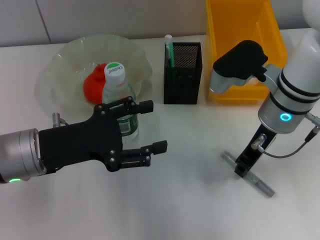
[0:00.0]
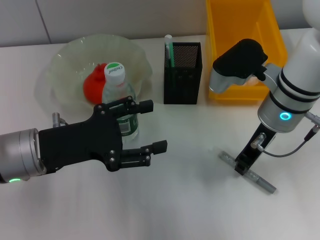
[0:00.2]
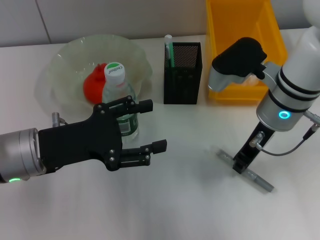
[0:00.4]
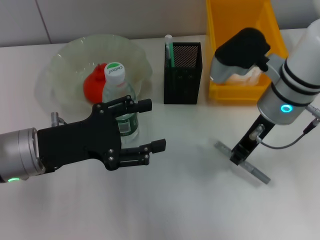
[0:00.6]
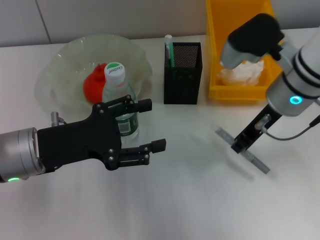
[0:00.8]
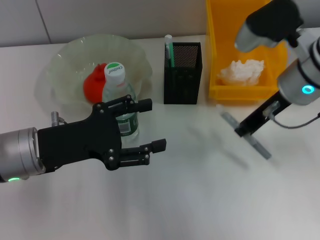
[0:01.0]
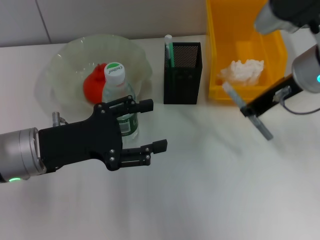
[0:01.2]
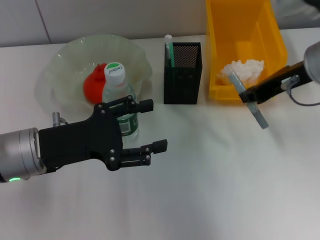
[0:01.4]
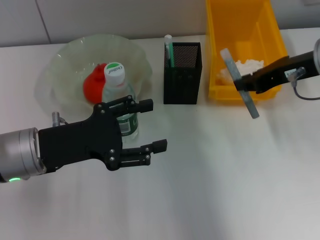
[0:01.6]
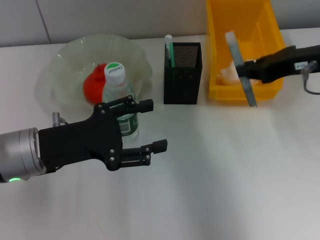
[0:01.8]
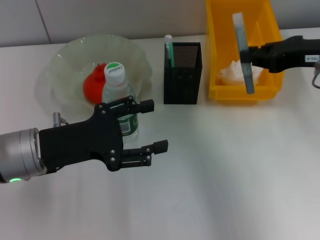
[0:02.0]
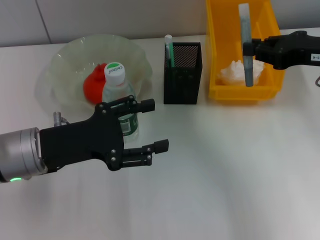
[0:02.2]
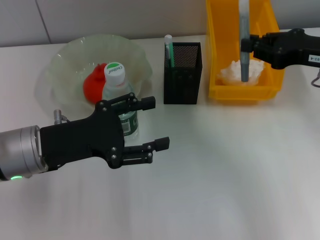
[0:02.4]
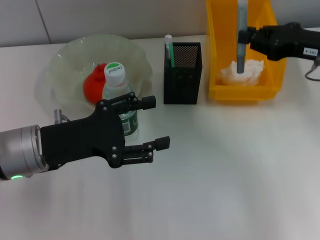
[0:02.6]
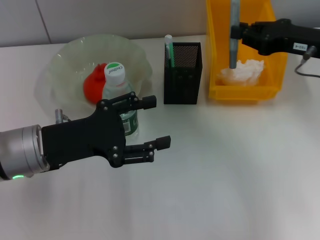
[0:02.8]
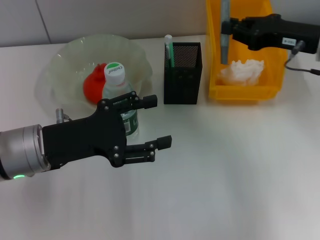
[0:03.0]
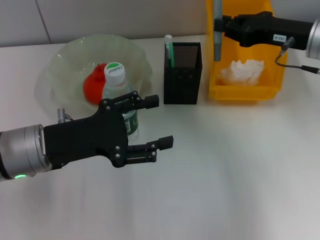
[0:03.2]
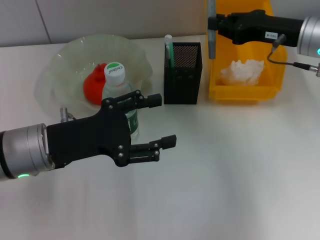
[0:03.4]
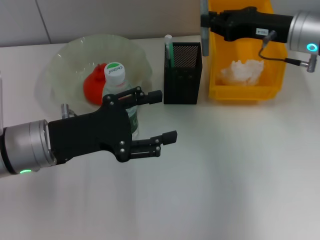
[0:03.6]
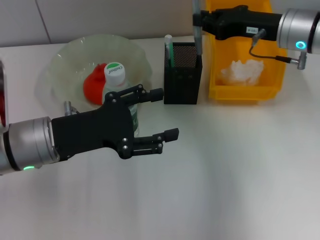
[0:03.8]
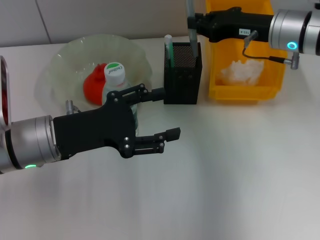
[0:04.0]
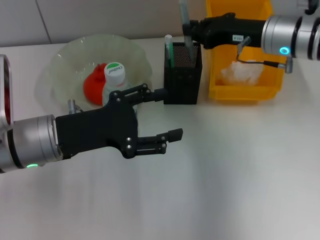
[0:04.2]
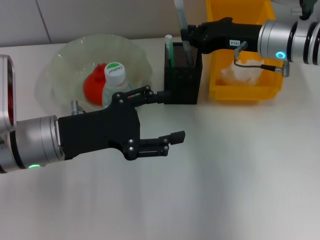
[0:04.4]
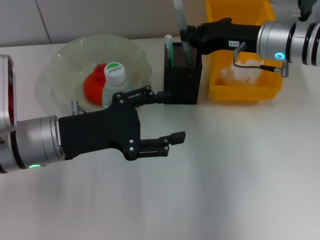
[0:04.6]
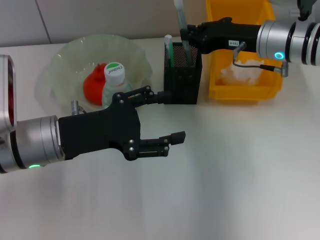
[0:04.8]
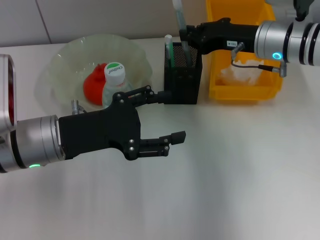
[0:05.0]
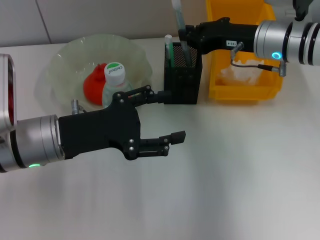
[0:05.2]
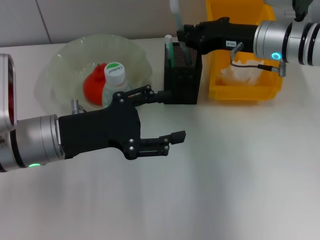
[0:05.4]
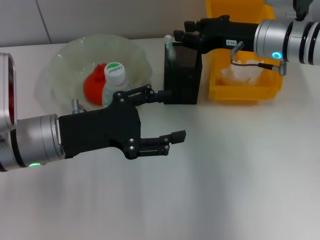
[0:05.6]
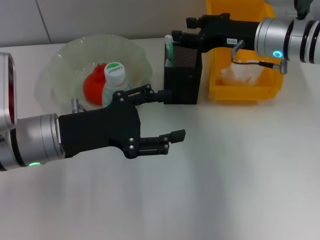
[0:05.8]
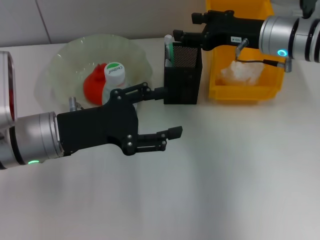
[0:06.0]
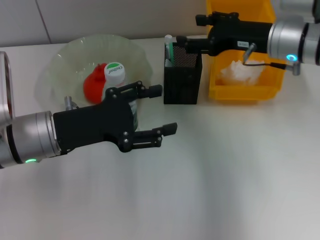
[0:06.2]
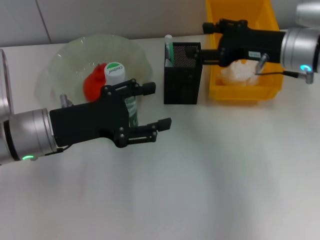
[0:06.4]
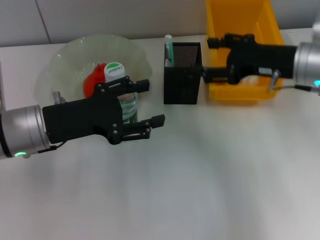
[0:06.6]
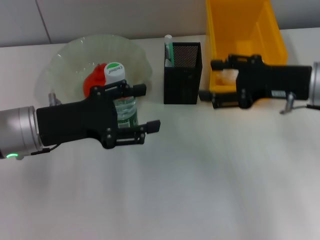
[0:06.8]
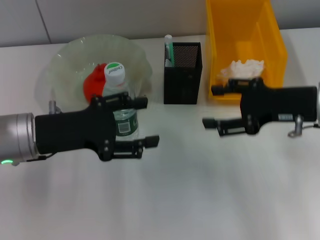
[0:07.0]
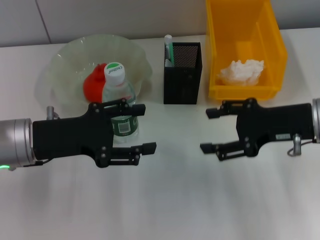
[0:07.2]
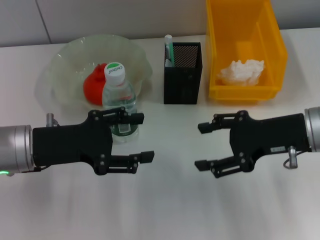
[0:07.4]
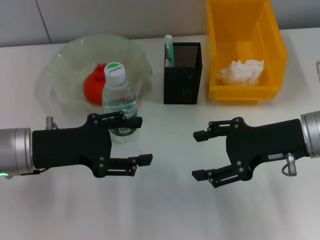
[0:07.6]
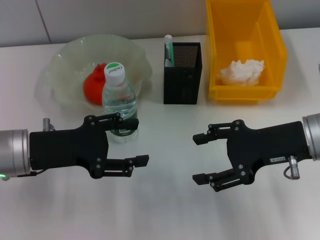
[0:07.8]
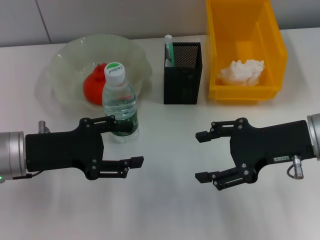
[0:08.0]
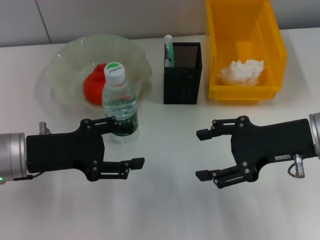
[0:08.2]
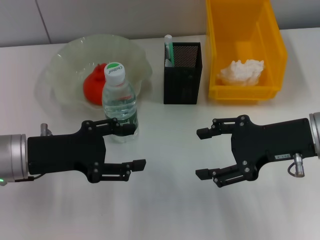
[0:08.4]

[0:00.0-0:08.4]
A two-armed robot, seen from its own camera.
Step, 0.4 to 6.2 s: Place the gray glue into the pen holder with the right hand.
0.0 to 1.4 s: The right gripper moves upward and to the right, roughly 10 cm.
1.4 to 2.8 s: The right gripper shifts some 5 cm to the right.
2.8 to 4.2 s: The right gripper shifts approximately 10 cm to the left and forward.
4.2 to 5.6 s: Both grippers stay about where they are.
5.6 to 7.0 s: The right gripper goes approximately 10 cm backward and to the right, and opens up.

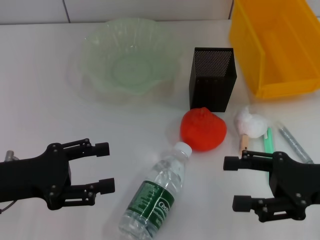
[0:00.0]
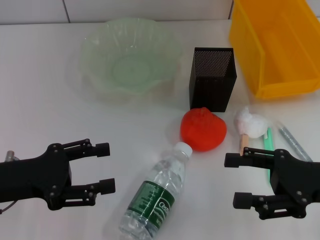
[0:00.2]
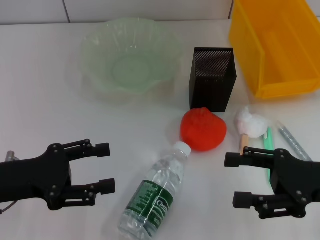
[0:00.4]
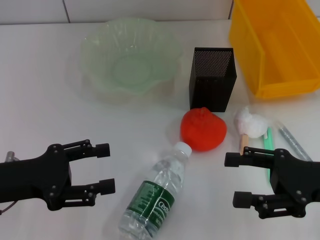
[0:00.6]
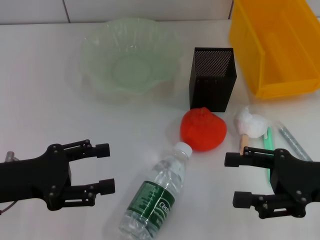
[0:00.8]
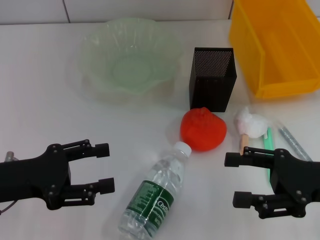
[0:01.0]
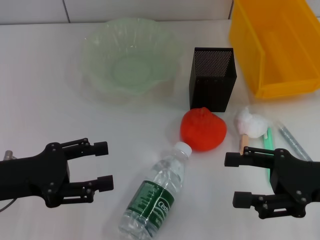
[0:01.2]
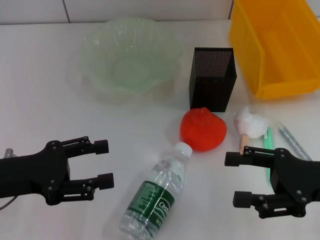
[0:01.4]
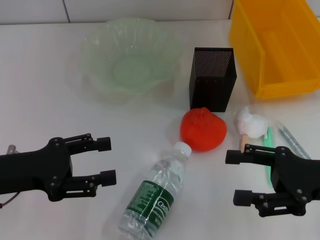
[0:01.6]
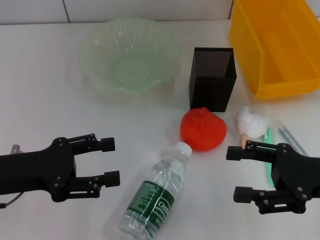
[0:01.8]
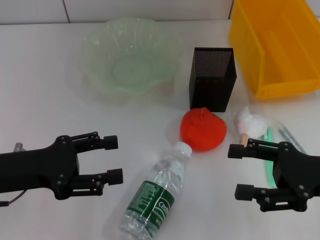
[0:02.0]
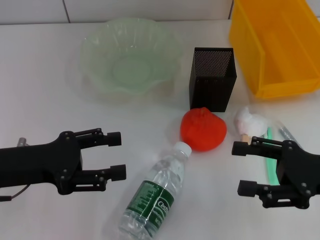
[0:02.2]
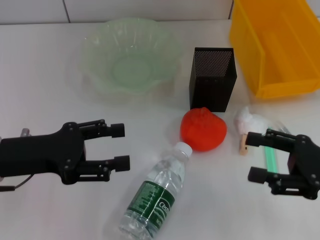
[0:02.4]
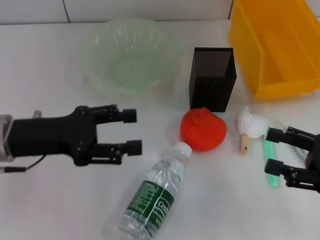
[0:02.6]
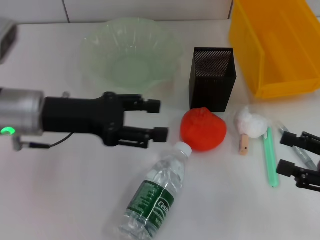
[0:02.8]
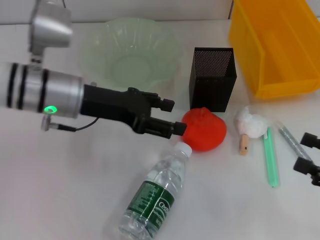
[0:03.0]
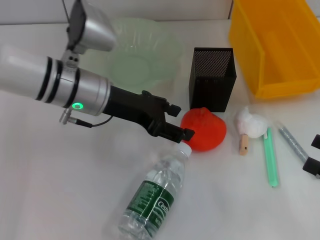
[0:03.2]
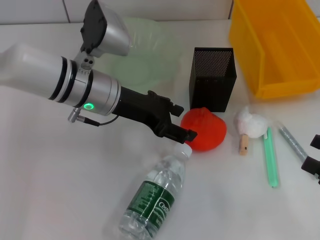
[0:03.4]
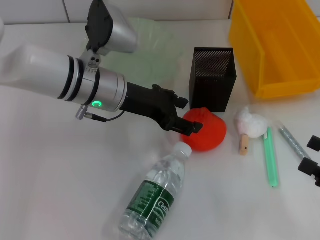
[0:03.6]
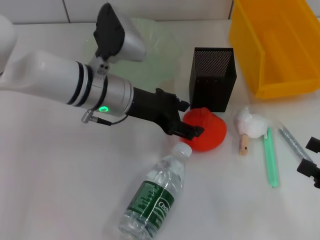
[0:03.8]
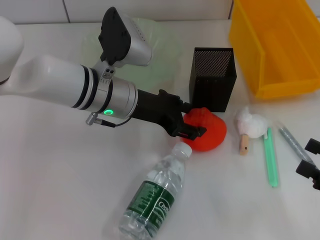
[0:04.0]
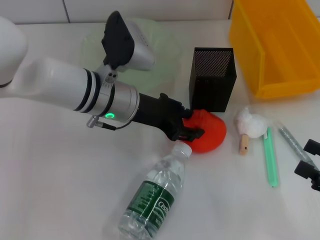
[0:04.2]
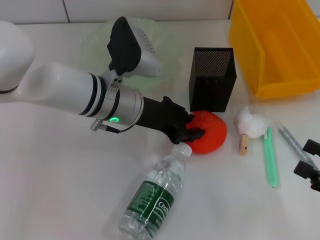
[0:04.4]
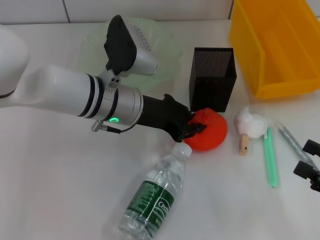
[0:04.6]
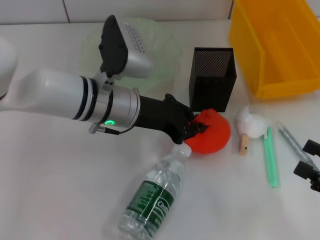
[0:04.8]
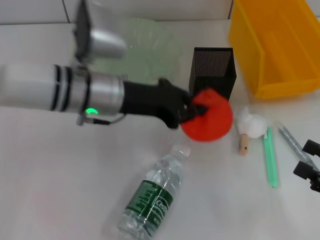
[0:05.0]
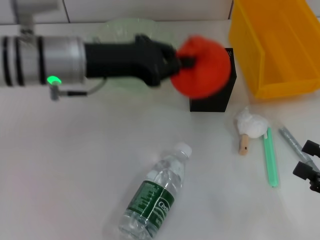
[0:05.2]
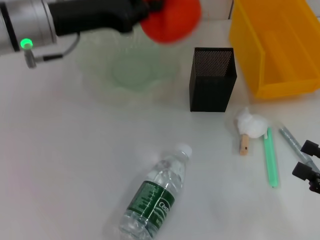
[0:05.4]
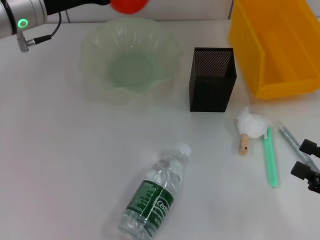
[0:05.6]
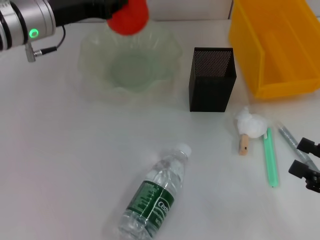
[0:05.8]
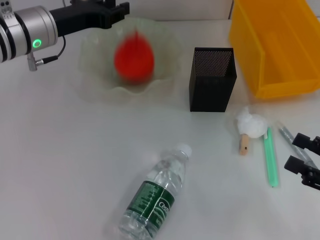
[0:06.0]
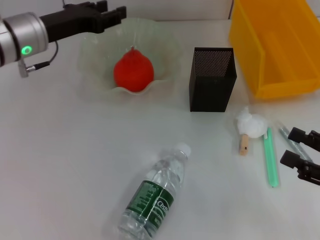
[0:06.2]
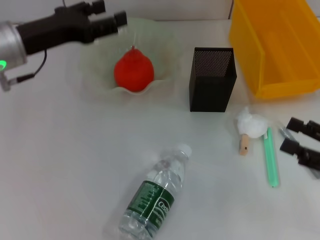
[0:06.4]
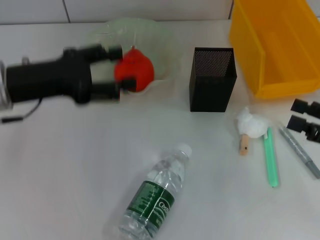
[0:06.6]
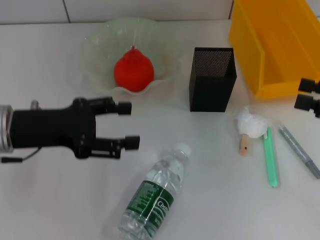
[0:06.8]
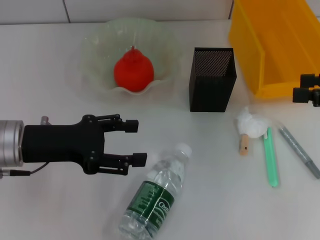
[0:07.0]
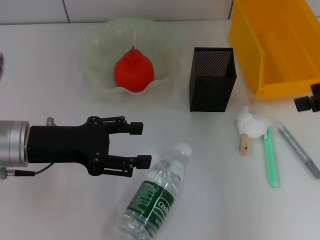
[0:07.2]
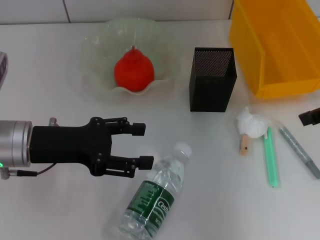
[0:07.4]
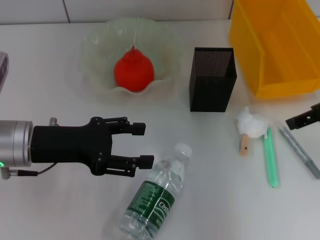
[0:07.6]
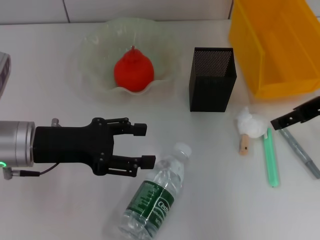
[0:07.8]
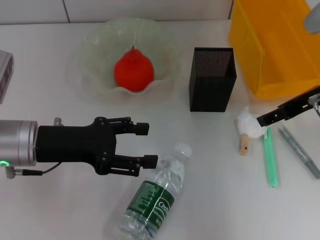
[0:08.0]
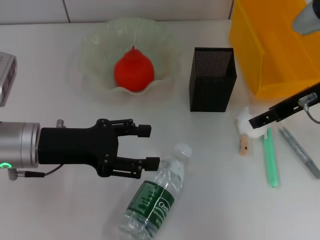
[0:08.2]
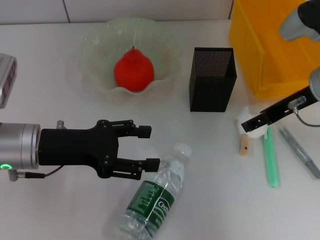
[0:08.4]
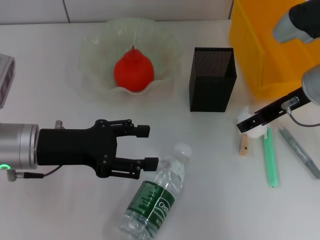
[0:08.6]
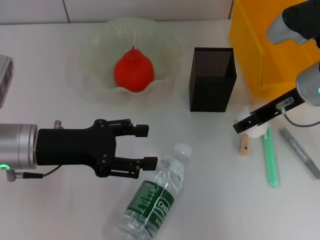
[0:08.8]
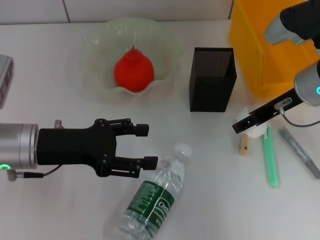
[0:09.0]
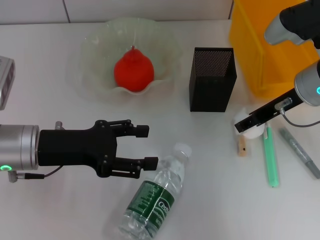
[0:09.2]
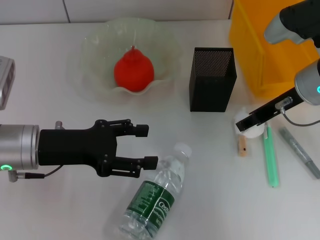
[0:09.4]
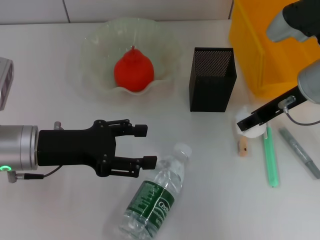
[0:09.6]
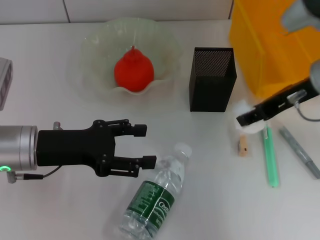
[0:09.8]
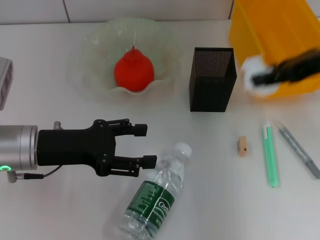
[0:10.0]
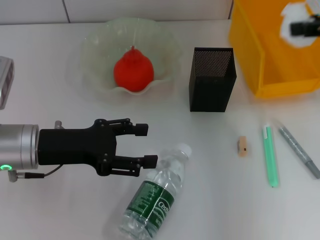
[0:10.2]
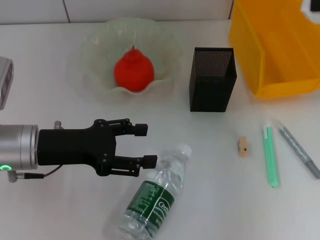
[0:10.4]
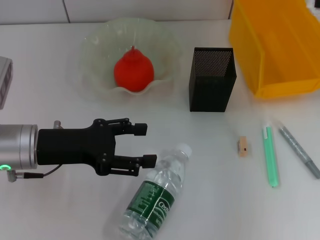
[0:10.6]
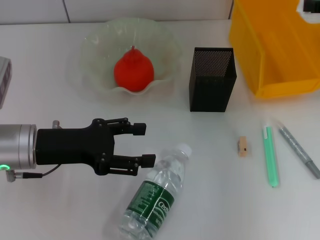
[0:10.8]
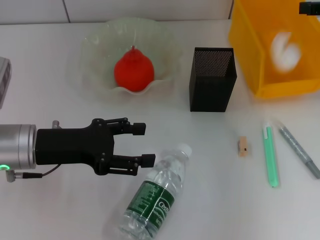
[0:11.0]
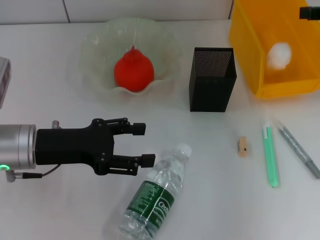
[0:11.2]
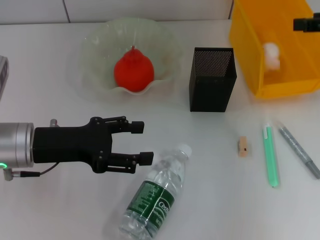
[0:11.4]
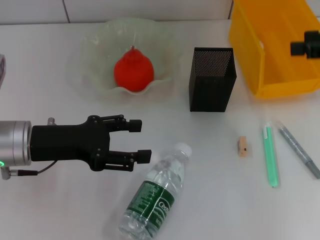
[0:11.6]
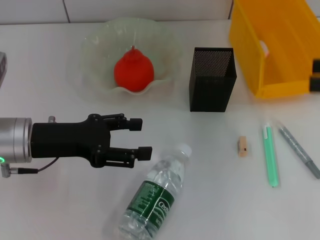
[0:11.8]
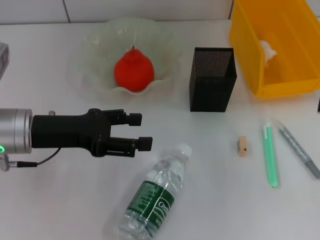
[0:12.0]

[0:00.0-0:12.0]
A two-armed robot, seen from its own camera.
Step, 0.0 to 4.6 s: Grab the orange with the left hand.
Step, 4.8 to 6.4 s: Place the orange into the fruit bowl with the left hand.
Step, 6.6 to 9.2 s: Grab the paper ball with the right hand.
Step, 9.4 to 11.2 s: Place the paper ball into the trash can with the right hand.
0.0 to 1.6 s: Neither gripper changes place.
1.6 to 3.0 s: The right gripper moves to the right, approximately 10 cm; the left gripper goes roughly 15 cm forward and to the right.
3.0 to 4.4 s: The left gripper moves to the right, approximately 10 cm.
4.4 to 6.0 s: The left gripper moves to the left and forward, approximately 15 cm, and closes its fingers.
6.0 to 7.6 s: The left gripper shifts about 15 cm backward, and opens. The right gripper is displaced forward and upward by some 20 cm.
7.6 to 9.0 s: The right gripper moves to the left and downward, roughly 10 cm.
9.0 to 10.4 s: The right gripper shifts about 15 cm to the right and upward, and closes.
10.4 to 12.0 s: The right gripper heads backward and downward, covering roughly 15 cm.

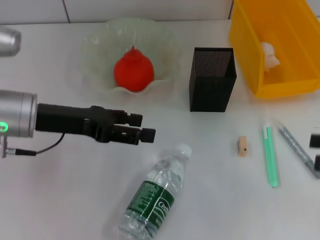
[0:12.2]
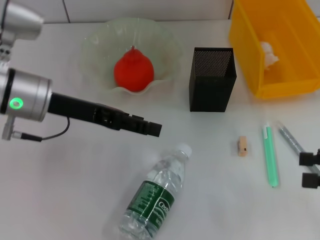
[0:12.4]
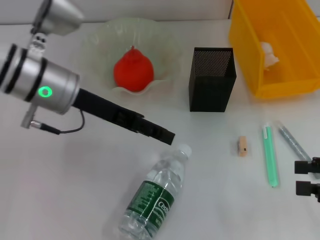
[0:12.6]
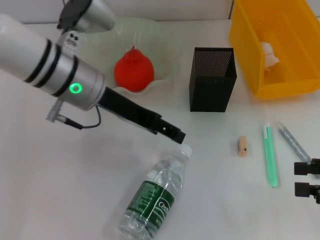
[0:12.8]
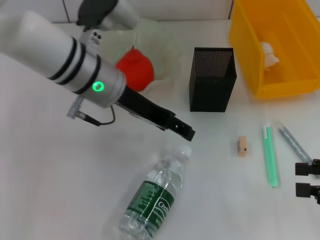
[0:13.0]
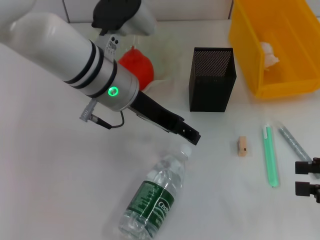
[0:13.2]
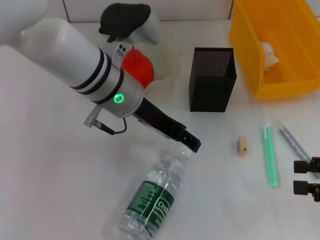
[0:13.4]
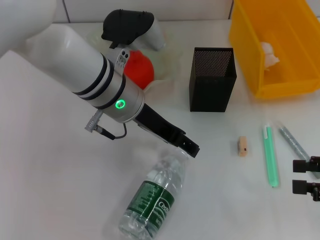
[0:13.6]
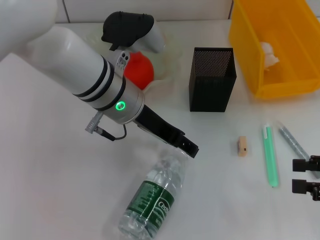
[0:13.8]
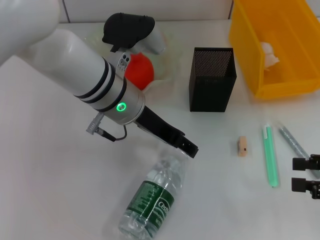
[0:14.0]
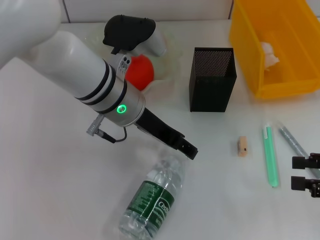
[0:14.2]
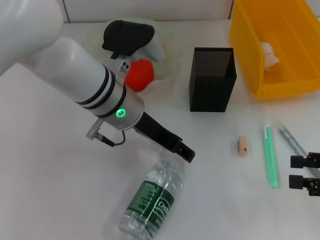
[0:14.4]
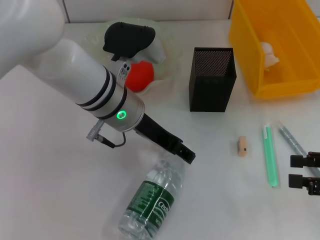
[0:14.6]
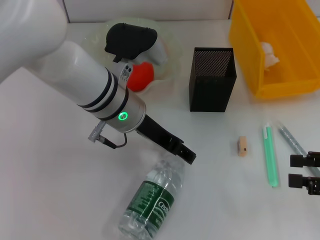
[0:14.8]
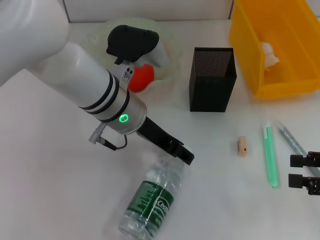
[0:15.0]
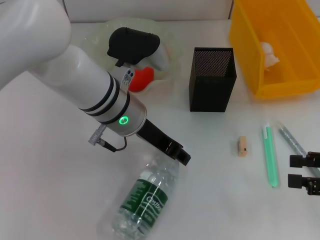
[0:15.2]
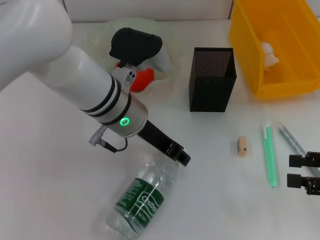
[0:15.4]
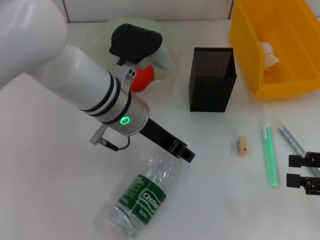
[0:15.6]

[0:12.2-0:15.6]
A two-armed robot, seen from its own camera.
Step, 12.2 to 15.2 s: Grab the water bottle with the left hand.
12.2 to 13.8 s: The left gripper heads to the right, covering about 15 cm.
13.8 to 15.6 s: The left gripper closes.
